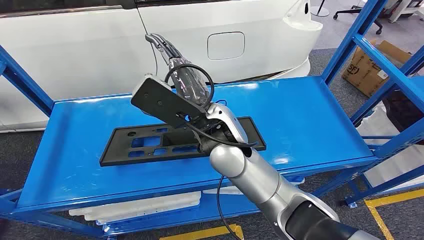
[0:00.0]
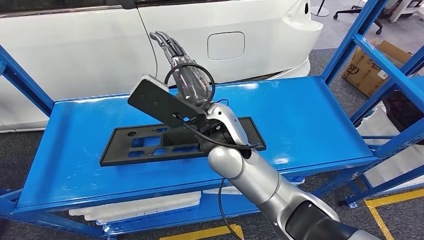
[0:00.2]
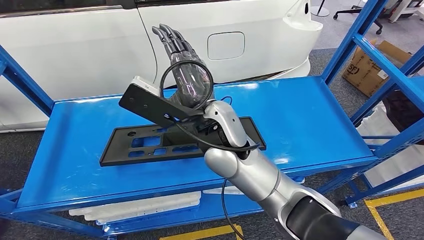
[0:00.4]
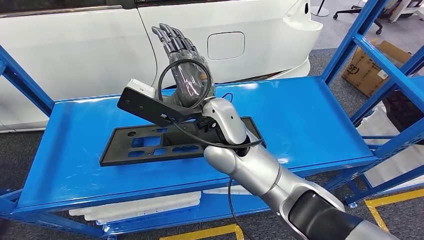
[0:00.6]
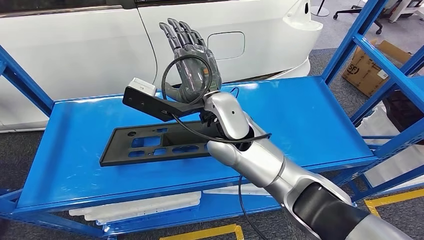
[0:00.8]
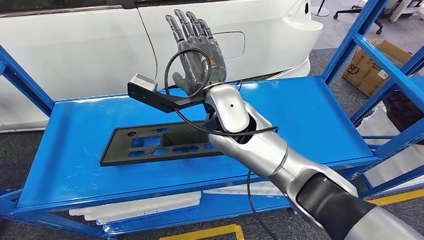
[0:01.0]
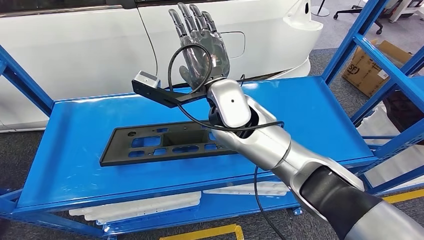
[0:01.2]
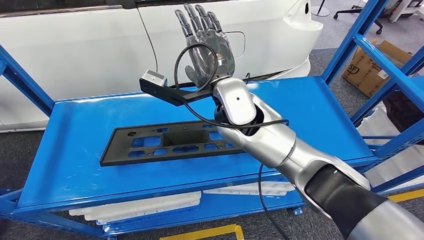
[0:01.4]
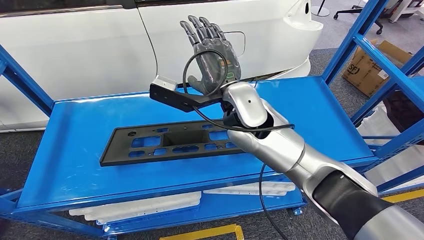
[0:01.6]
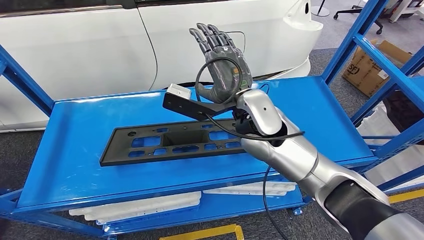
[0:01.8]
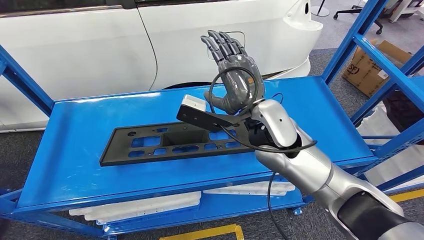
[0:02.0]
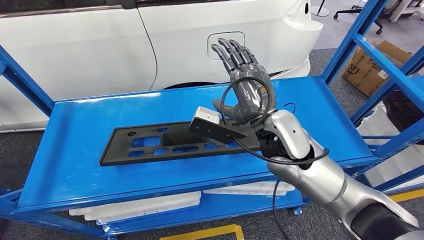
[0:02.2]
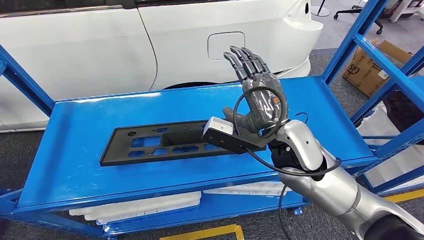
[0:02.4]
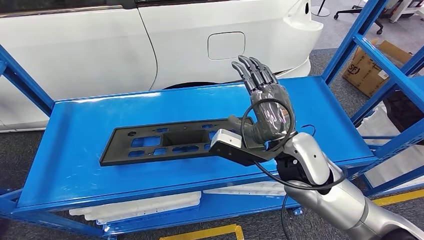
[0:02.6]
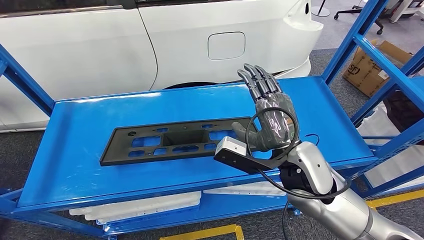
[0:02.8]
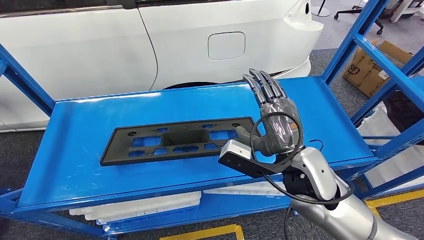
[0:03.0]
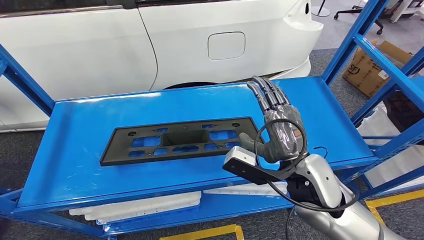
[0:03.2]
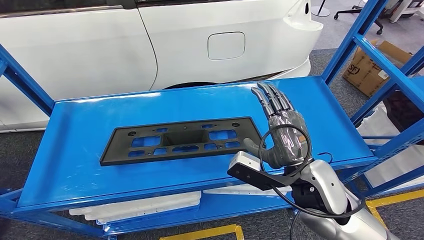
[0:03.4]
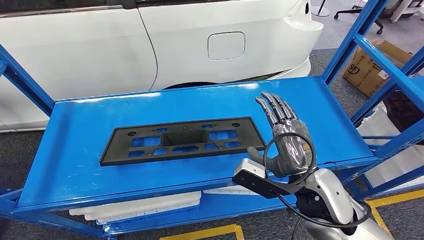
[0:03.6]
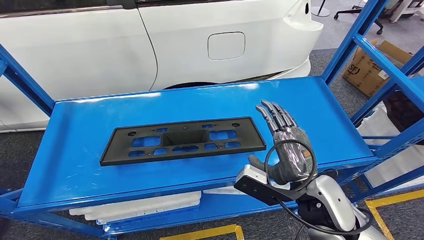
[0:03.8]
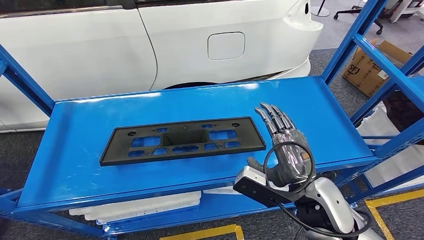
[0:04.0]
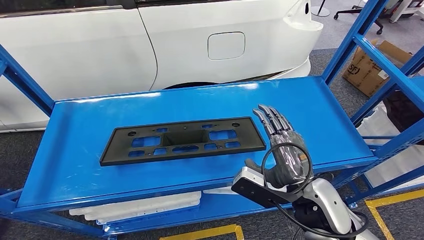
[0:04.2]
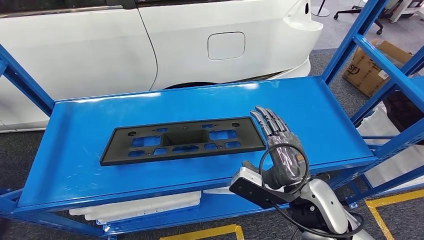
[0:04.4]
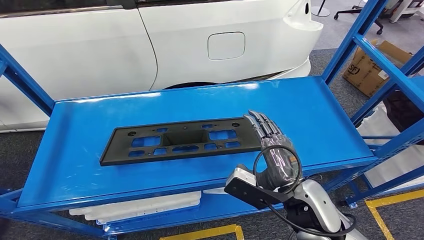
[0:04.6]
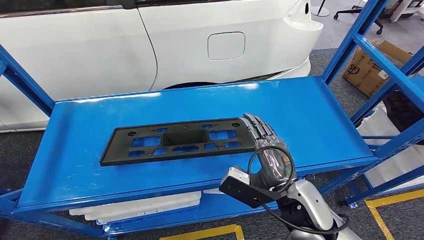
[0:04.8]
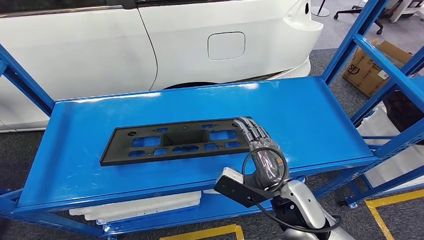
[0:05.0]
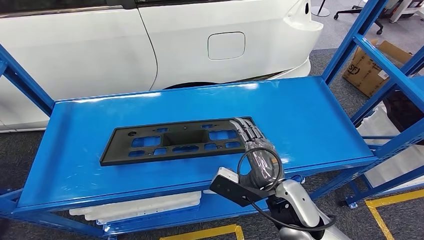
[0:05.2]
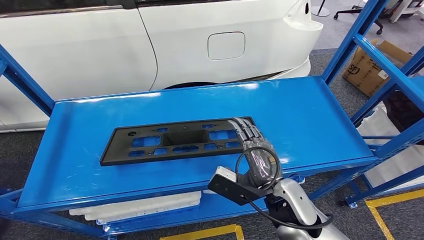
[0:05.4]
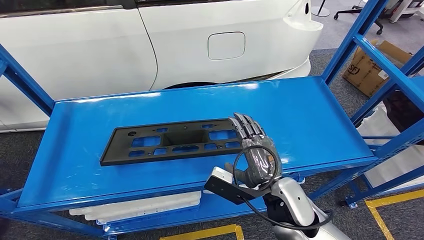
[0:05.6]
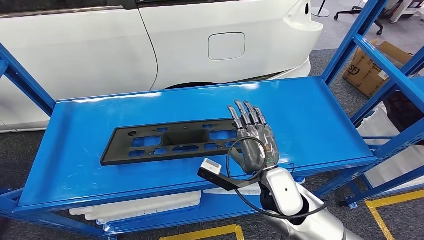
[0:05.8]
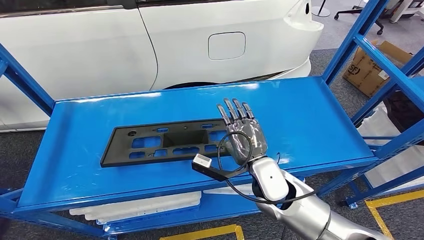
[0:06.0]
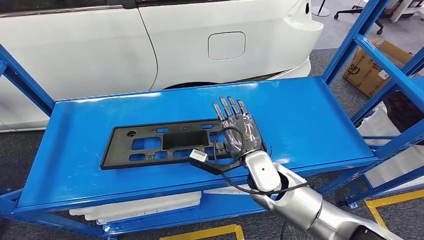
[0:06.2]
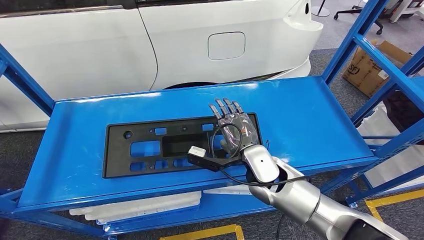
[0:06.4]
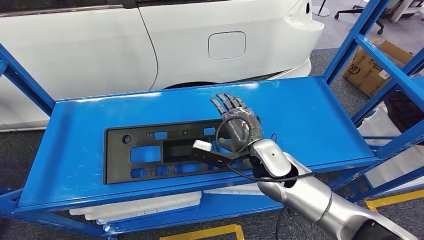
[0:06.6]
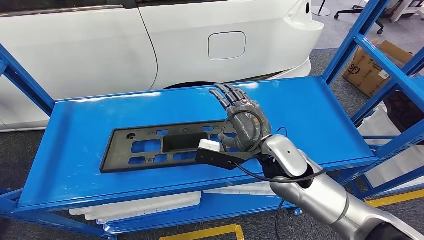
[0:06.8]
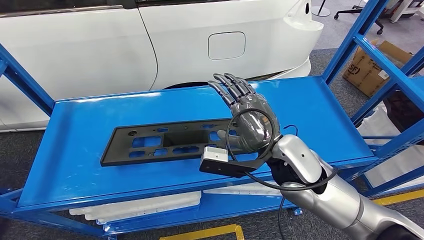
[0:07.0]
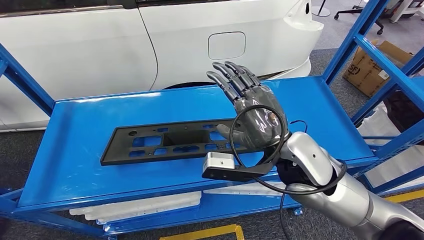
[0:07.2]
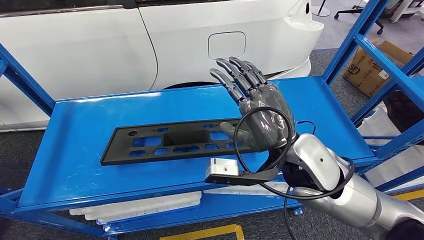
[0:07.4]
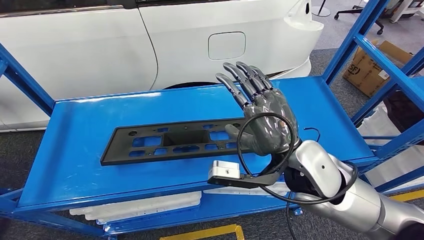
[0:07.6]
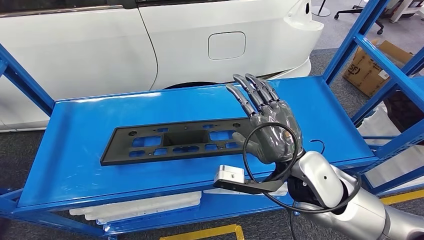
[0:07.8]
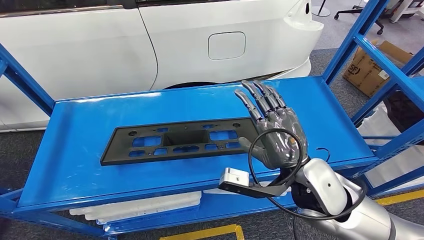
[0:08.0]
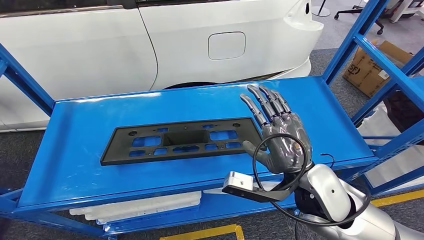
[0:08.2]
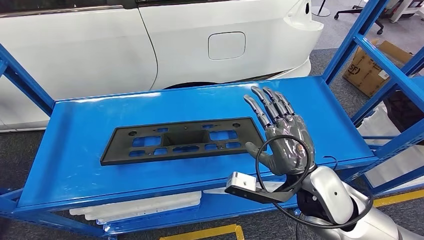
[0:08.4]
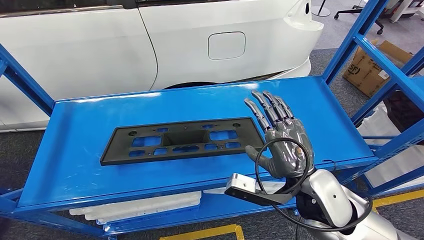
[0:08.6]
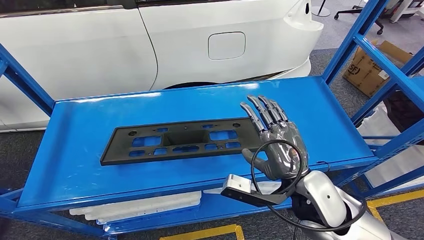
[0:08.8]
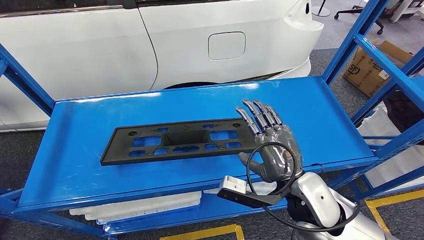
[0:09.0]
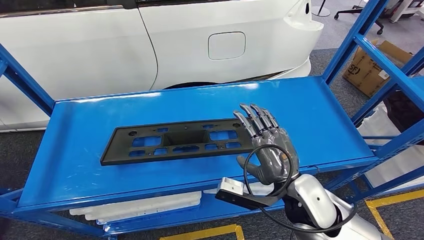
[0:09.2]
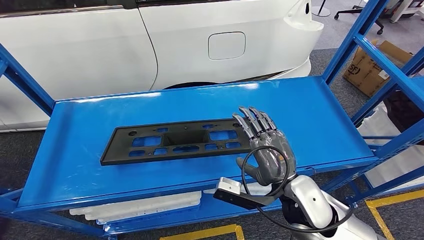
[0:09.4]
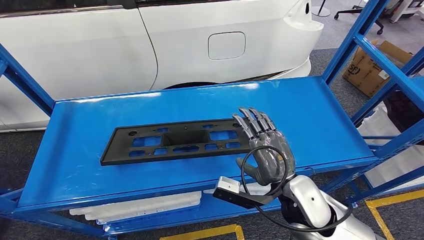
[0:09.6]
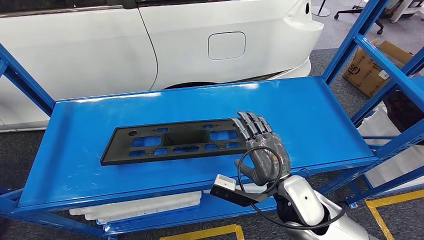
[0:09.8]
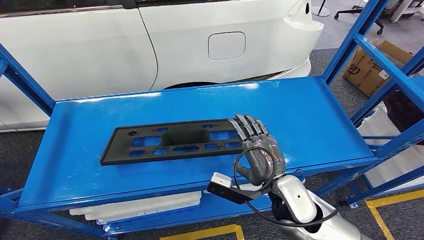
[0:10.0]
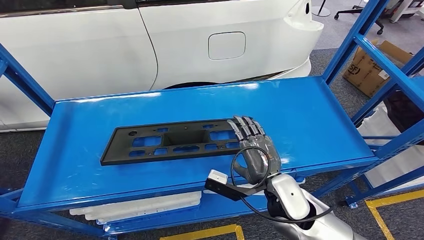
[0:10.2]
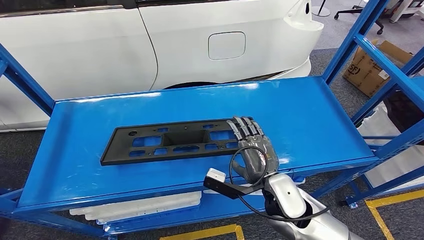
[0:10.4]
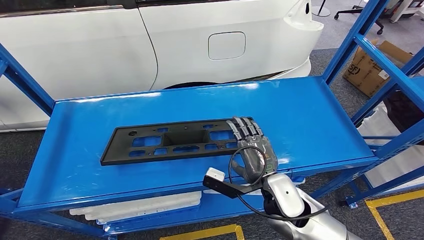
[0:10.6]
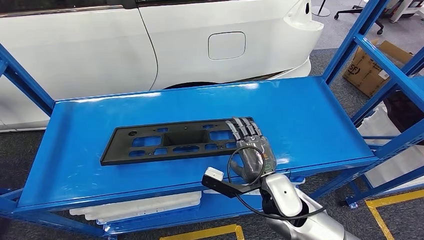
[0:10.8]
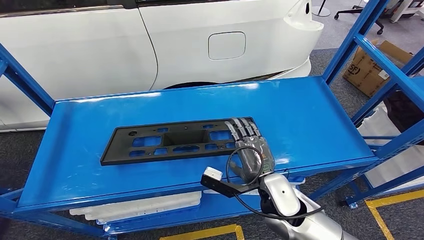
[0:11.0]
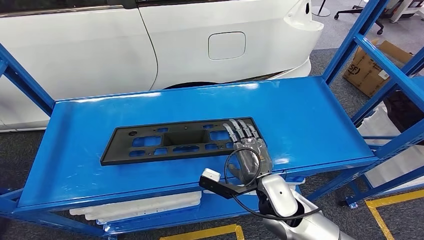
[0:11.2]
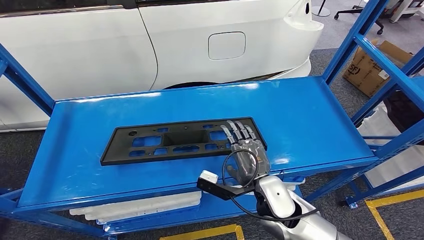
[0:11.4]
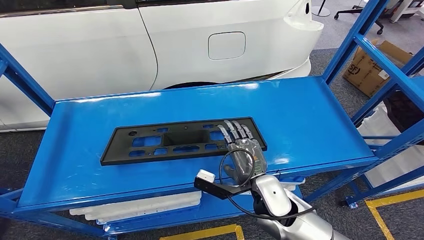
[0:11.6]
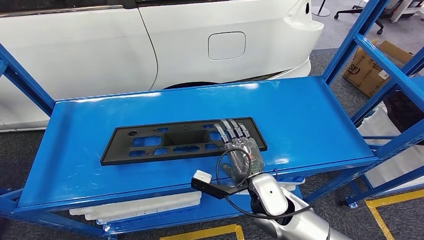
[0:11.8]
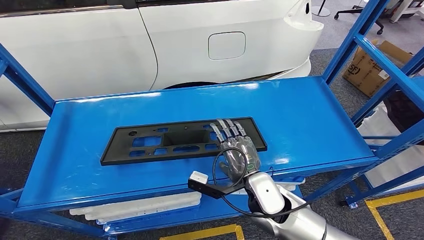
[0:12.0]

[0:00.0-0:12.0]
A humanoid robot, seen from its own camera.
0:01.6 to 0:03.0: The right hand is displaced backward, to the right and downward by approximately 20 cm.
0:03.0 to 0:04.4: The right hand goes some 10 cm backward.
0:04.4 to 0:06.0: The right hand moves forward and downward, some 10 cm.
0:06.0 to 0:07.6: The right hand is displaced upward by approximately 15 cm.
0:07.6 to 0:09.0: The right hand moves downward and backward, some 10 cm.
0:09.0 to 0:10.4: The right hand is displaced downward by about 5 cm.
0:10.4 to 0:12.0: The hands make only small movements.

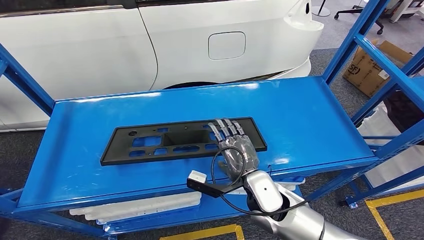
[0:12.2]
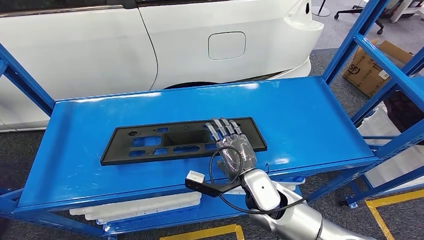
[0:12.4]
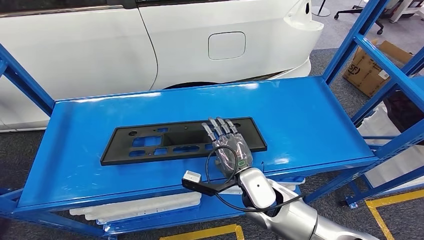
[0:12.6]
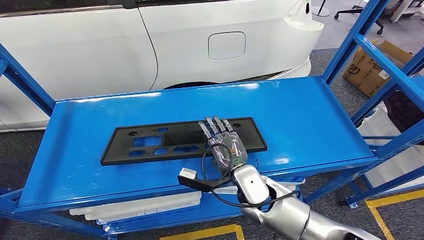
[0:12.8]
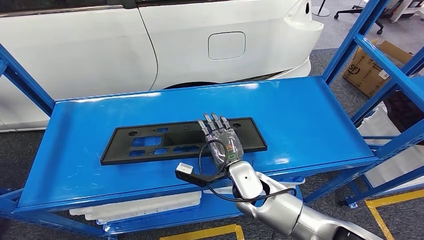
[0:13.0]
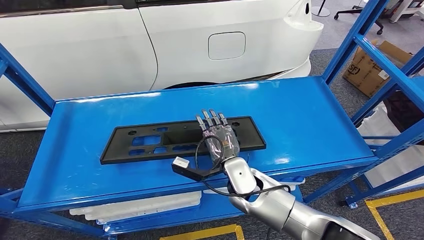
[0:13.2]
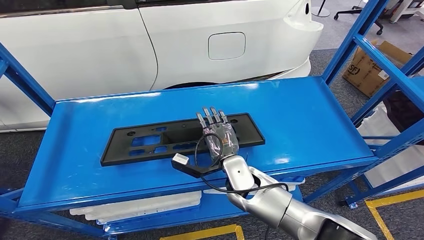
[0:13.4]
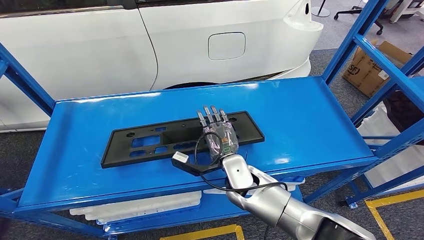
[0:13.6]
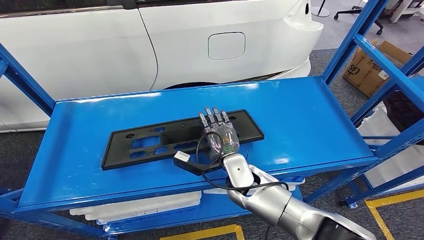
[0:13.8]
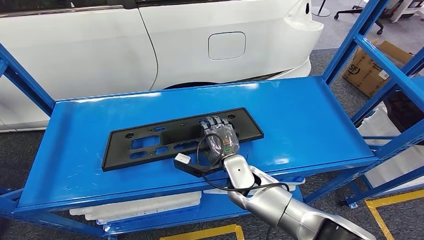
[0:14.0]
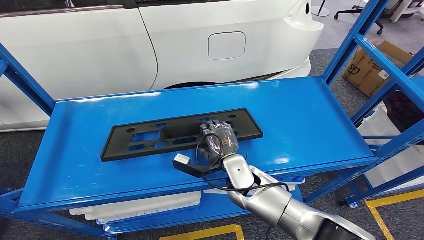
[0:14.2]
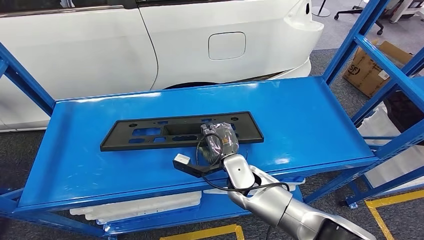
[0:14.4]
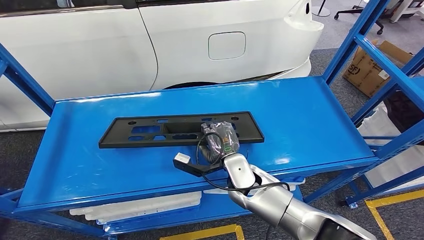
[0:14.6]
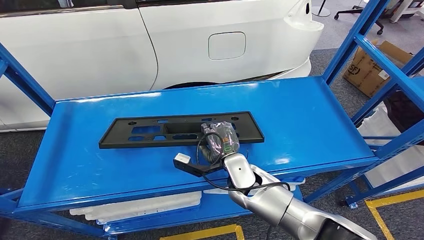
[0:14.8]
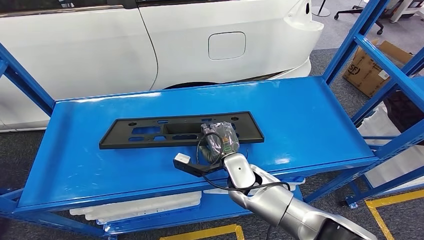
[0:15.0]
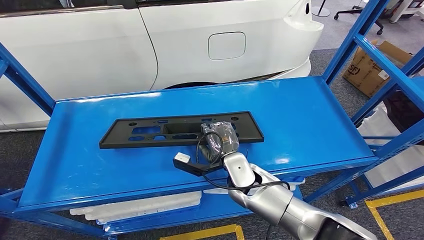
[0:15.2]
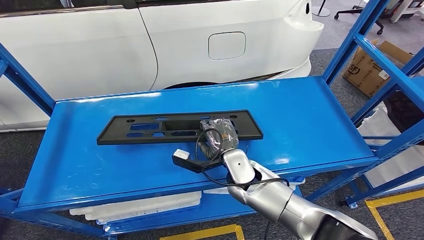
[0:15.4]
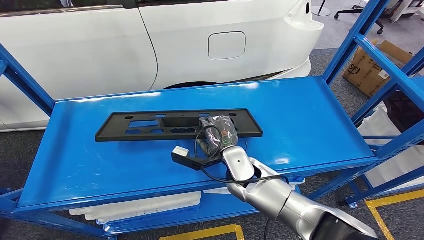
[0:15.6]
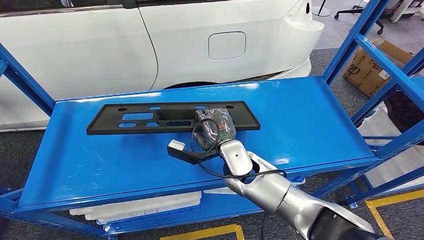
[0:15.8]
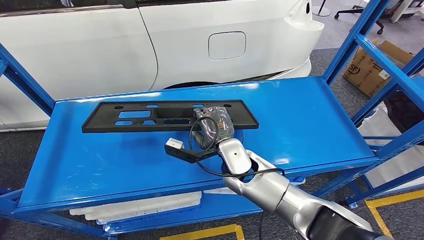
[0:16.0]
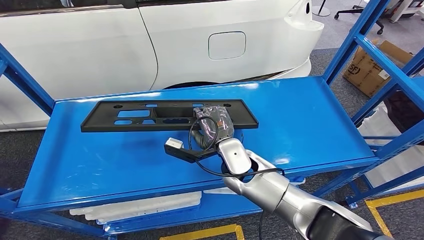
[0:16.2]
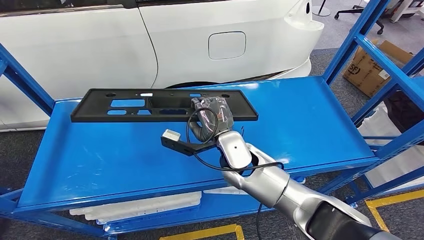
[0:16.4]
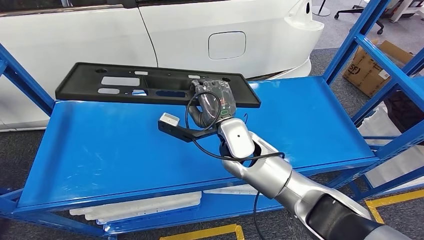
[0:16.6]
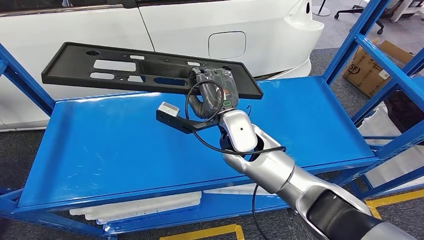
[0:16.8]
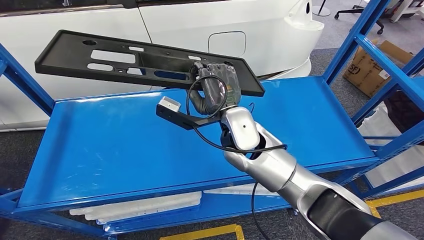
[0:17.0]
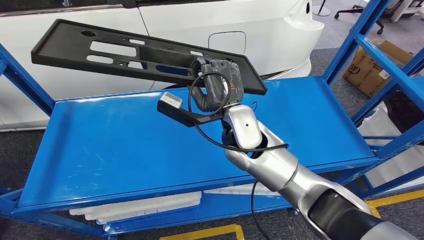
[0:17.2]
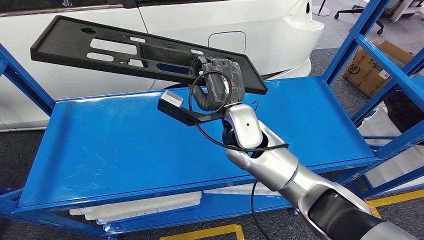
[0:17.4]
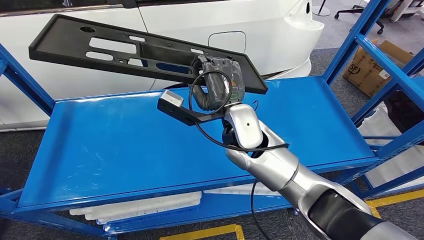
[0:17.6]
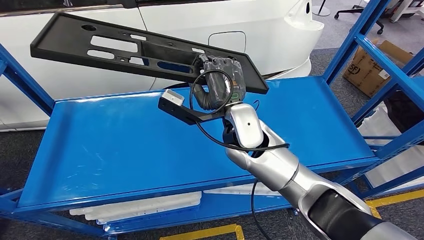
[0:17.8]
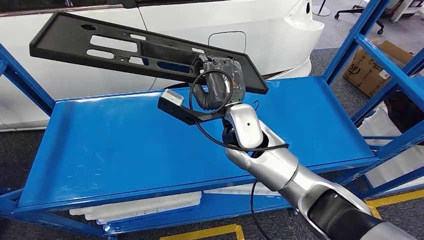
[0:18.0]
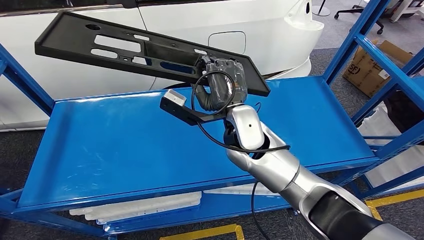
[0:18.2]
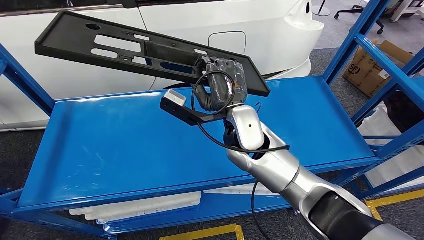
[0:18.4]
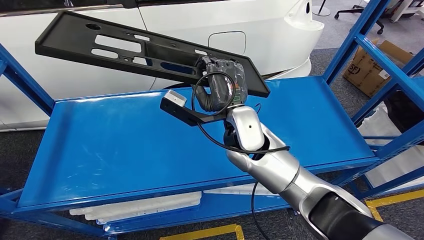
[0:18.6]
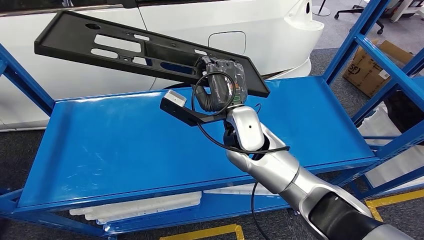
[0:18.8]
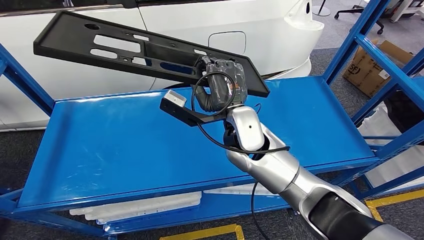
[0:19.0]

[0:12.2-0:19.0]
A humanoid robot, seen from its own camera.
Step, 0:12.2 to 0:16.8: Pick up the large material from the shelf.
0:12.2 to 0:13.6: The right hand moves forward, approximately 5 cm.
0:13.6 to 0:15.0: Both hands stay put.
0:15.0 to 0:16.2: The right hand shifts by roughly 5 cm.
0:17.6 to 0:19.0: The hands make only small movements.
